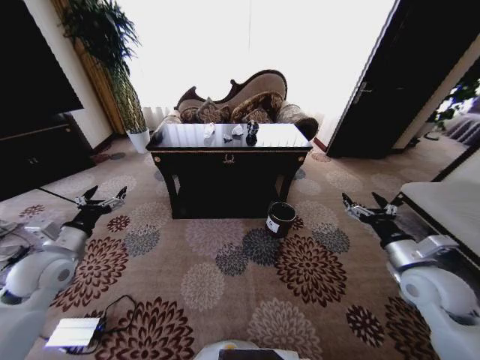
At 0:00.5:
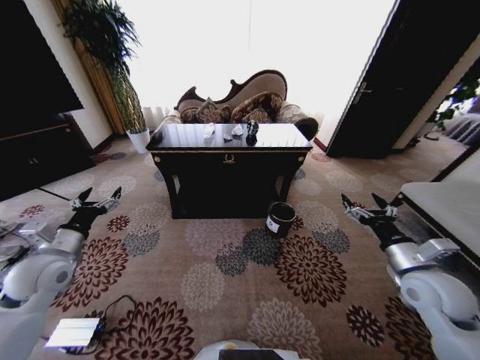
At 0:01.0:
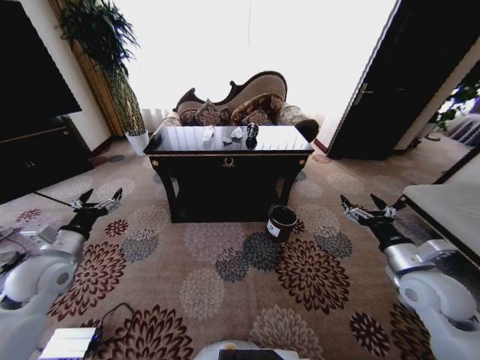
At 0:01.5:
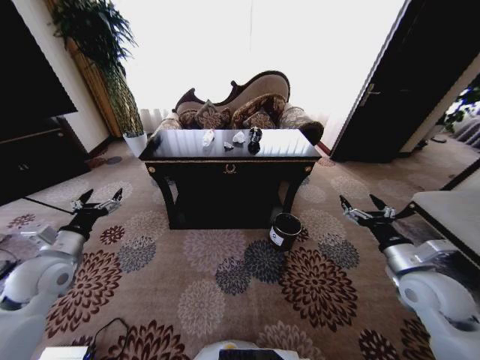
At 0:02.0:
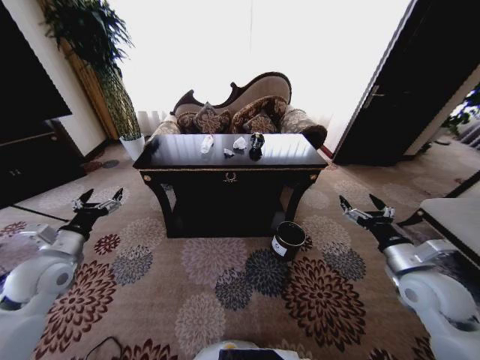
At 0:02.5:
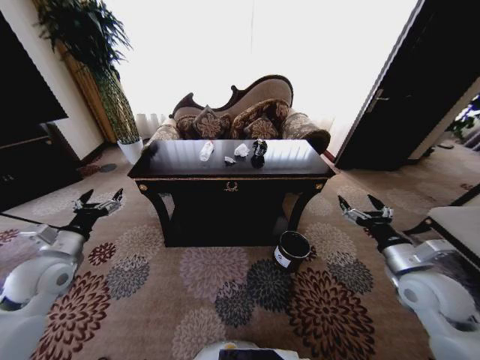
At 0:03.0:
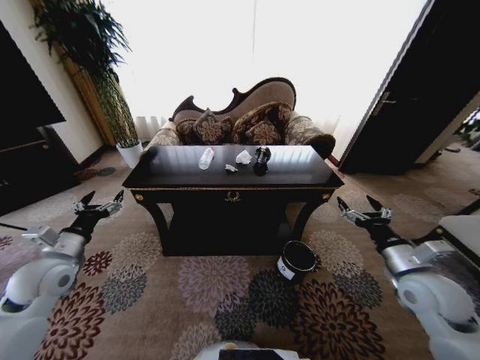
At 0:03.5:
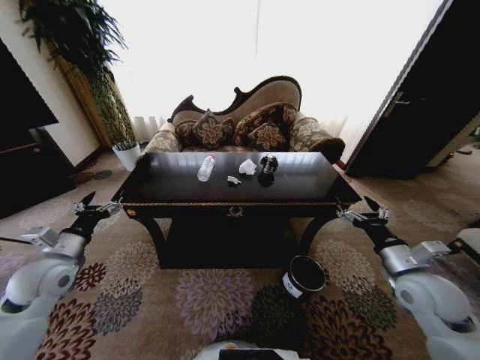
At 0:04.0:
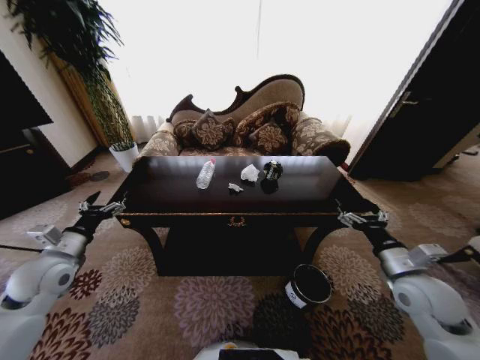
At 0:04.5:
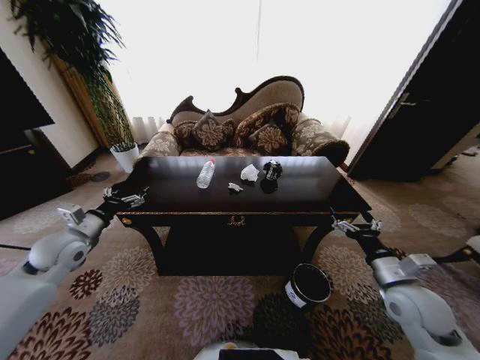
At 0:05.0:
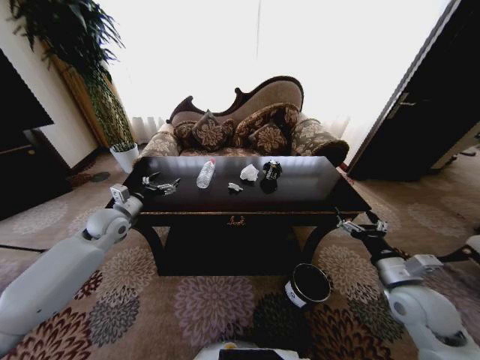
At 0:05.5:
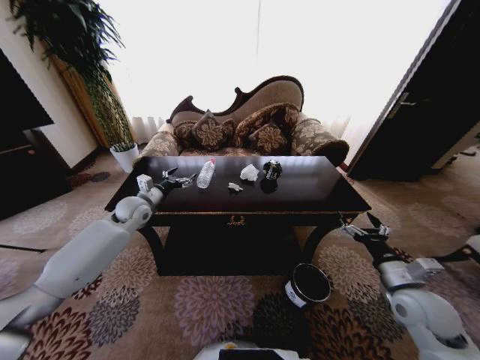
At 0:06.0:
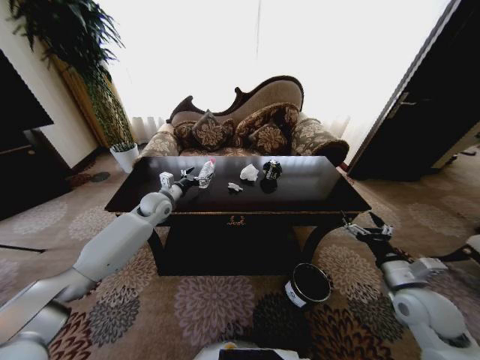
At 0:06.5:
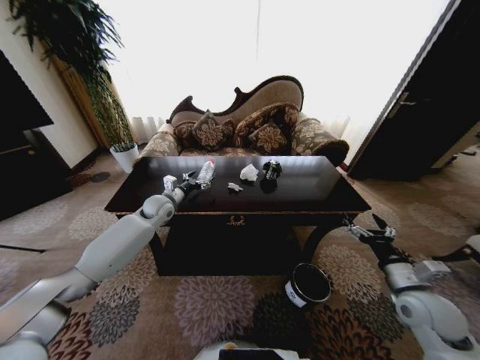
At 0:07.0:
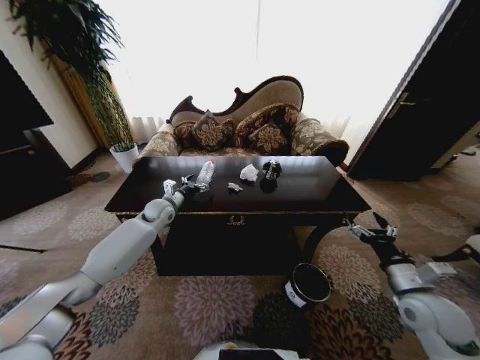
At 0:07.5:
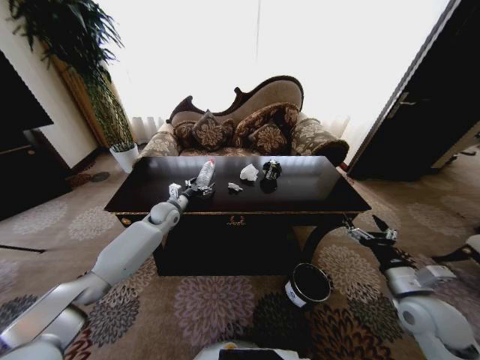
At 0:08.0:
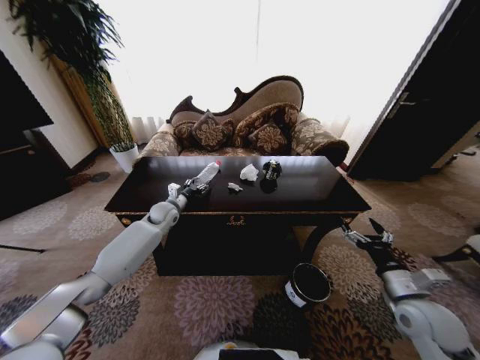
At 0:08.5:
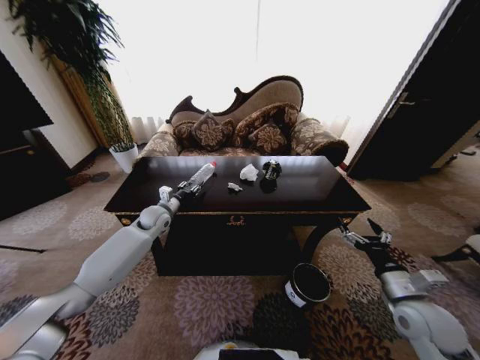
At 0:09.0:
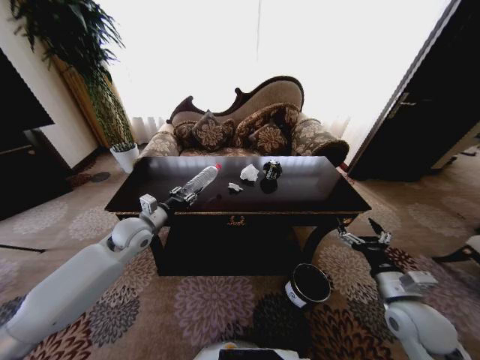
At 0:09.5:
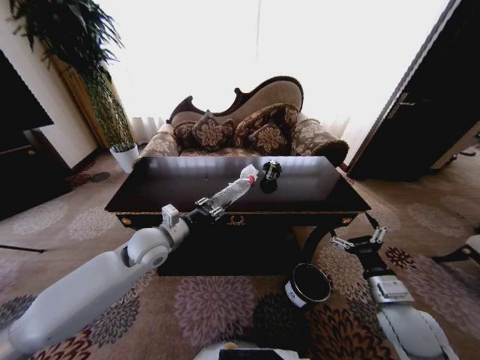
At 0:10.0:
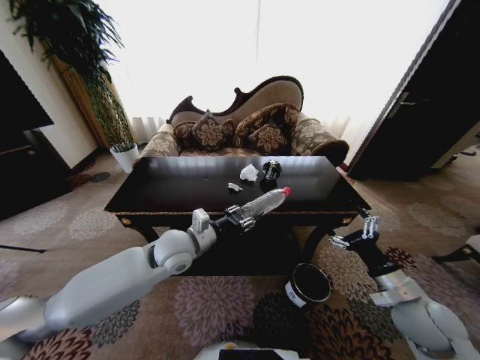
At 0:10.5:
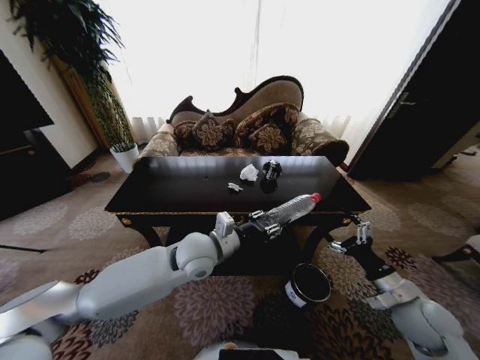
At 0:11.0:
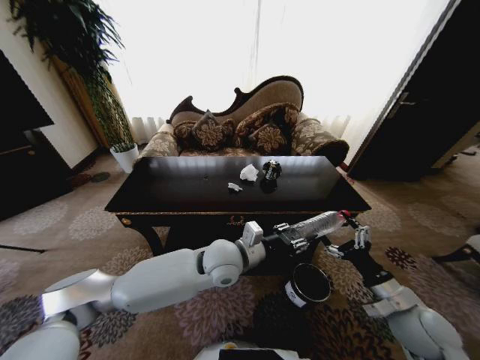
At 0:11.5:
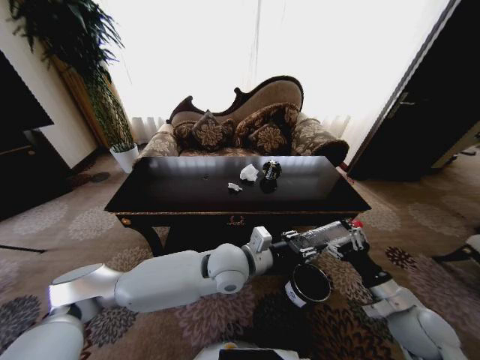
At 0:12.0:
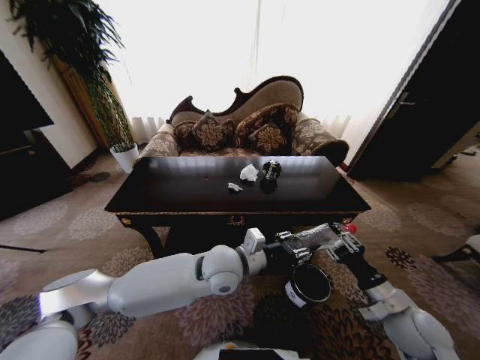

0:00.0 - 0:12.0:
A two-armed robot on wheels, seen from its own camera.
Task of the whole recording: Move to the front of the table and place the trash on the table into the trash bin.
0:04.0 - 0:06.0: The left gripper moves forward and to the right, roughly 30 cm.
0:06.0 - 0:08.0: The left gripper travels downward by some 5 cm, and closes its fingers.
0:08.0 - 0:10.0: The left gripper moves backward, to the right and upward, some 25 cm, and closes.
0:10.0 - 0:12.0: The right gripper closes its fingers. Meanwhile the left gripper goes some 10 cm to the right.

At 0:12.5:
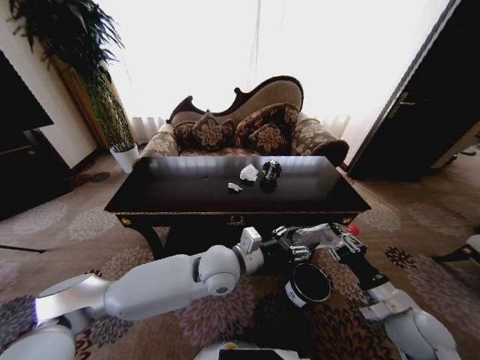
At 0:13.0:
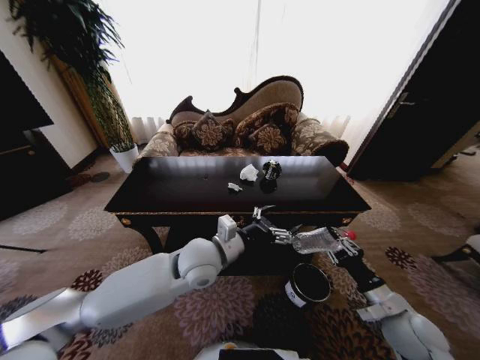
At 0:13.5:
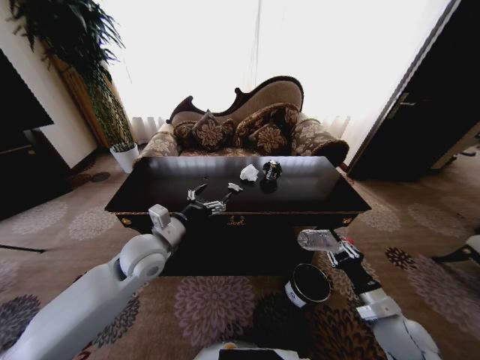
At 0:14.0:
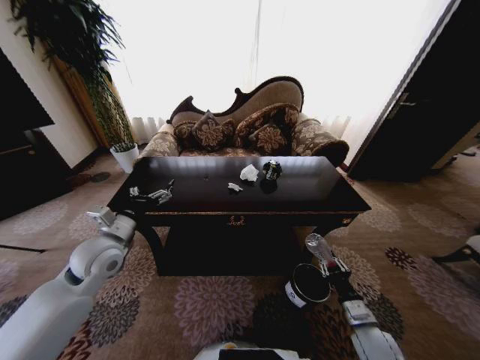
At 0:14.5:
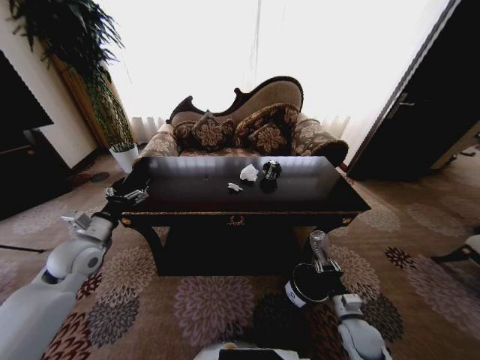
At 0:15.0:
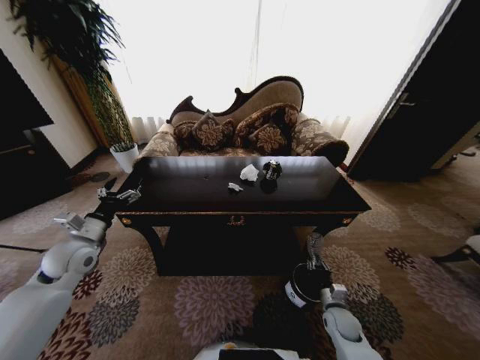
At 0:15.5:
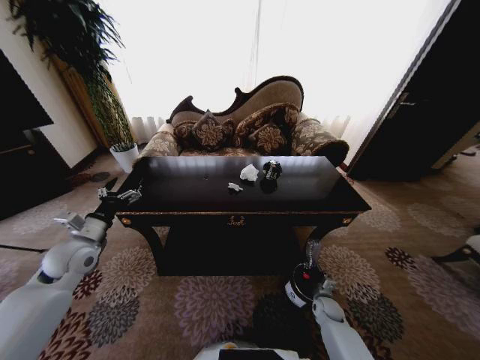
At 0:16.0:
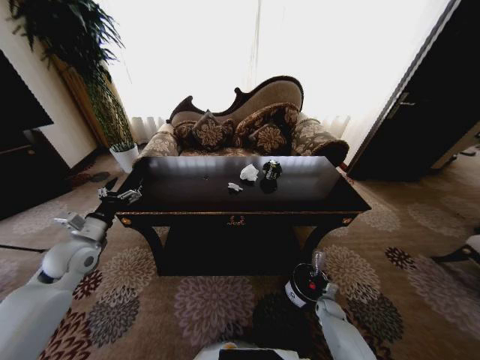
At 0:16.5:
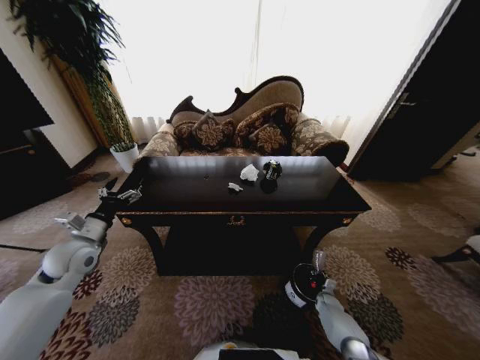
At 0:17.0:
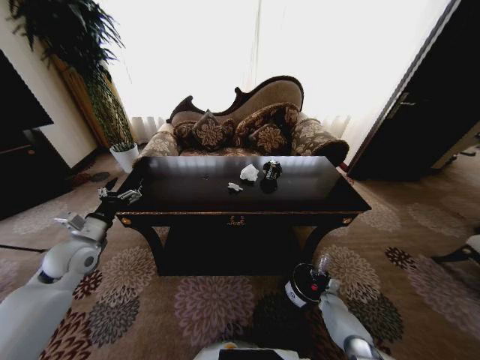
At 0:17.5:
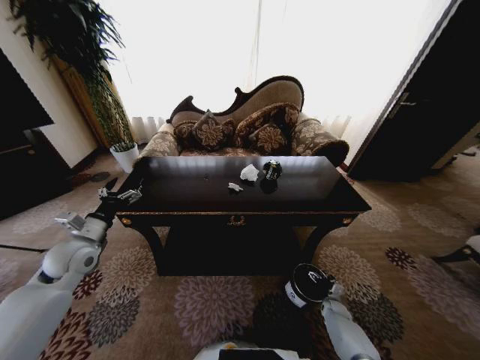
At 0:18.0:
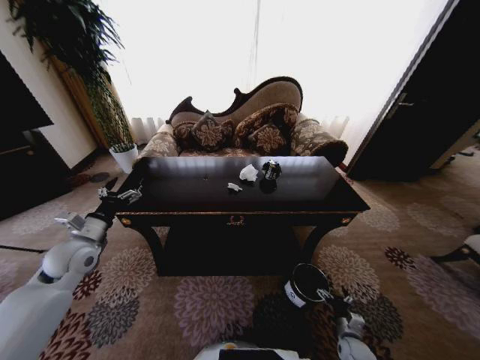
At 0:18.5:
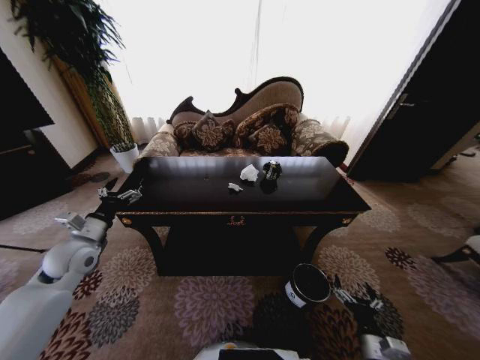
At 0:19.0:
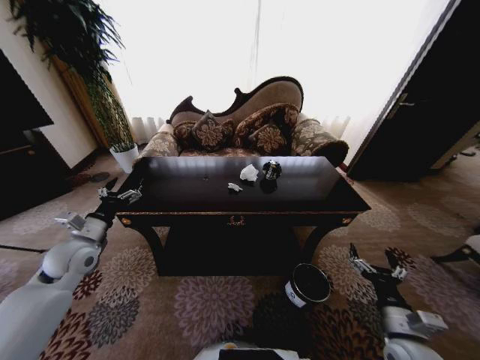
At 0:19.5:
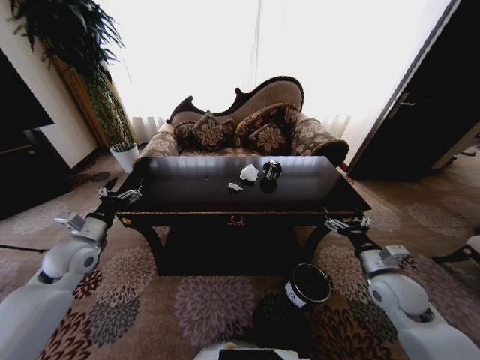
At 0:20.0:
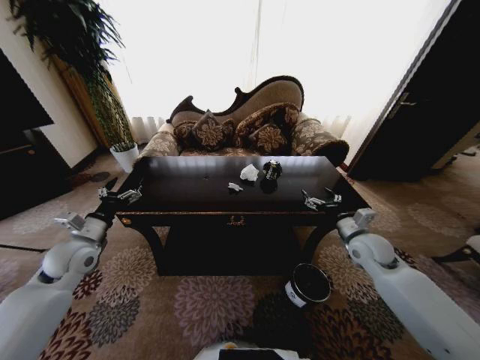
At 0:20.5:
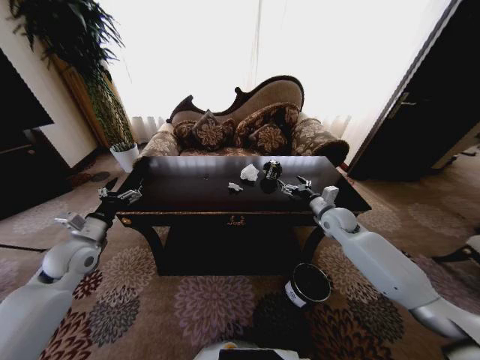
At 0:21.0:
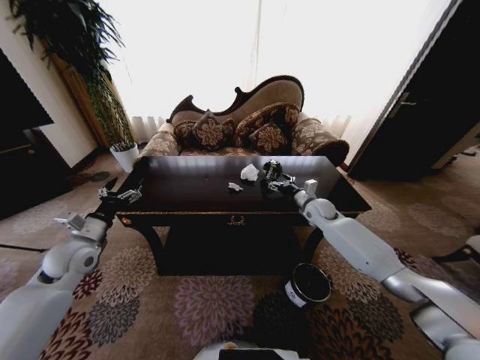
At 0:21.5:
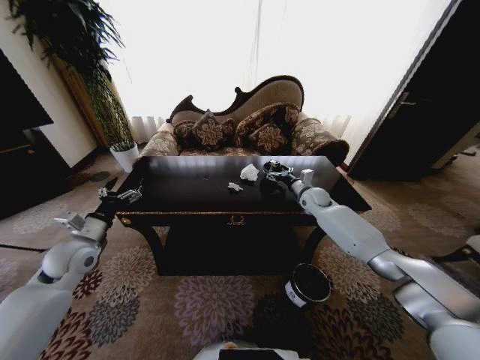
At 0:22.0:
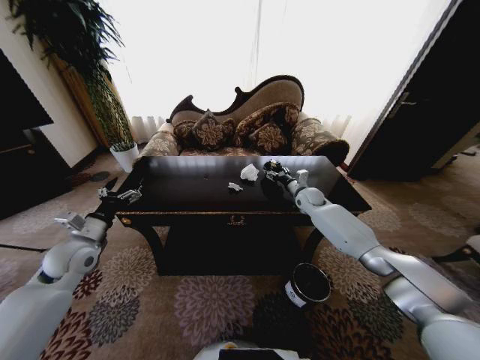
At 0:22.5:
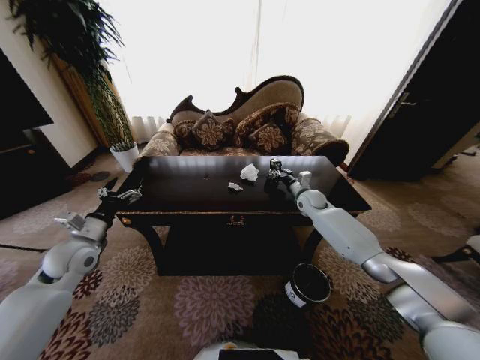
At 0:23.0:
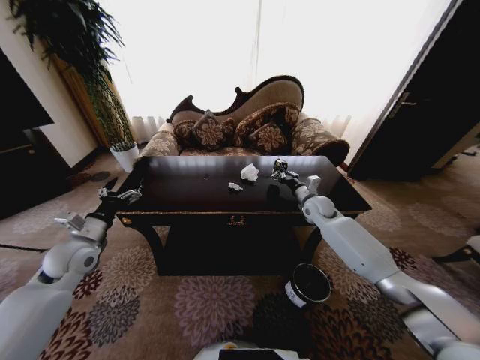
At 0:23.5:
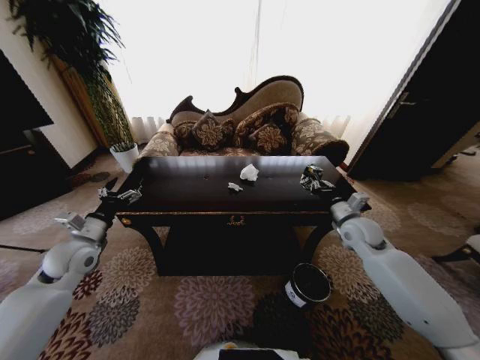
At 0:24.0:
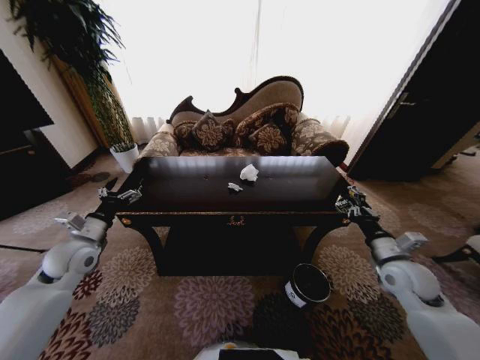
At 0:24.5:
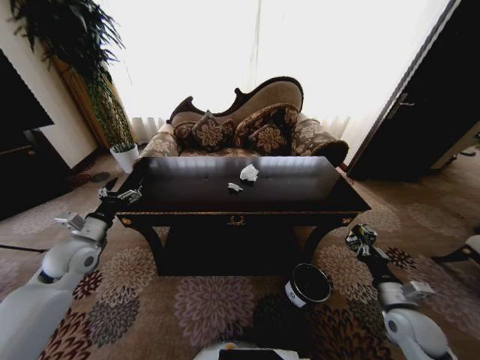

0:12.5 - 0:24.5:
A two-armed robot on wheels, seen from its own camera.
Task of the whole recording: Move to the front of the table and place the trash on the table into the trash bin.
0:12.5 - 0:14.5: The left gripper shifts some 35 cm to the left, and opens. Meanwhile the right gripper shifts some 15 cm downward.
0:14.5 - 0:16.5: The right gripper is displaced downward and forward by approximately 25 cm.
0:16.5 - 0:18.5: The right gripper goes about 30 cm backward and upward, and opens.
0:18.5 - 0:20.5: The right gripper shifts about 40 cm forward and upward.
0:20.5 - 0:22.5: The right gripper moves forward, approximately 10 cm, and closes up.
0:22.5 - 0:24.5: The right gripper shifts roughly 35 cm backward.

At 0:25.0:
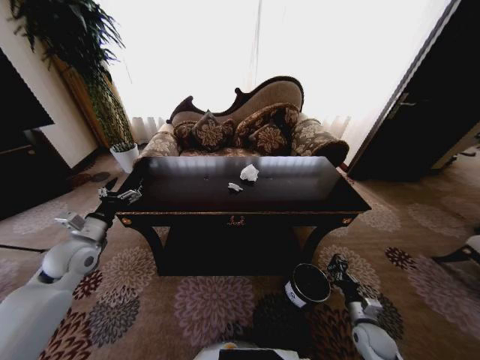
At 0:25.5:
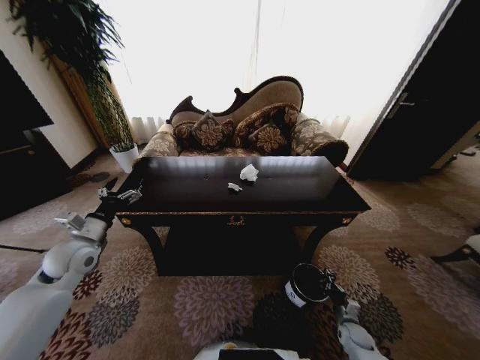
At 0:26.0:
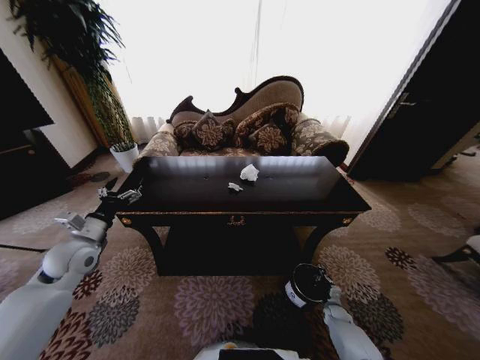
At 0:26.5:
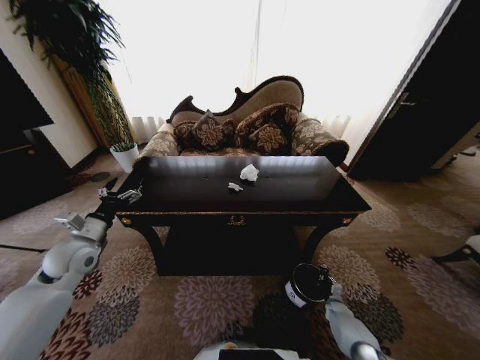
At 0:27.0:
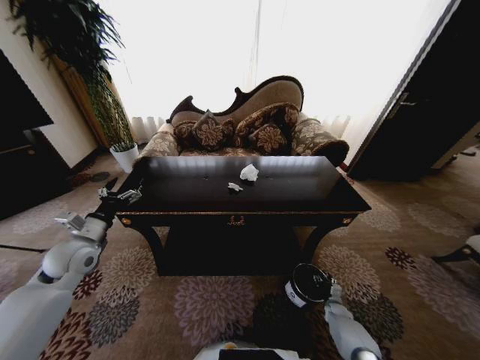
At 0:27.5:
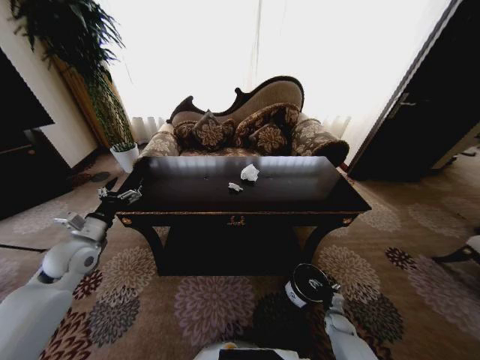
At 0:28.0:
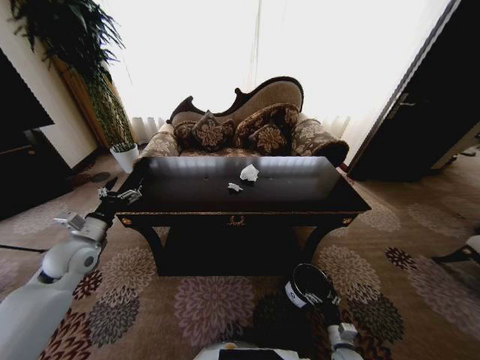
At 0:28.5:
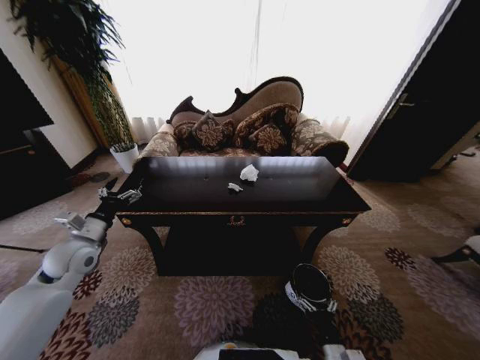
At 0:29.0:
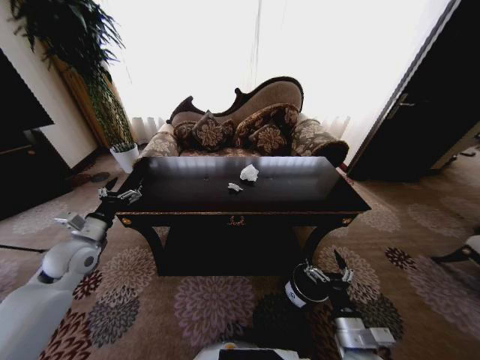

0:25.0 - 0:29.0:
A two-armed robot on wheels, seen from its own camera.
Task of the whole recording: Move to the front of the table and place the trash on the table into the trash bin.
0:25.0 - 0:27.0: The right gripper travels downward and forward by roughly 20 cm, and opens.
0:27.0 - 0:29.0: The right gripper shifts approximately 35 cm upward, backward and to the left, and opens.
